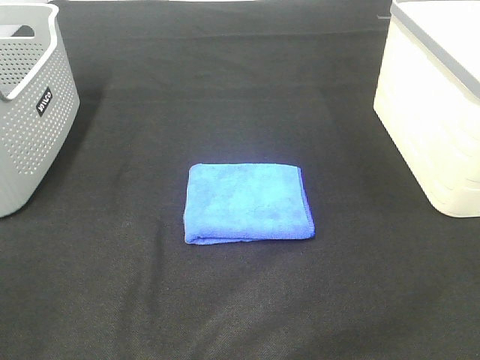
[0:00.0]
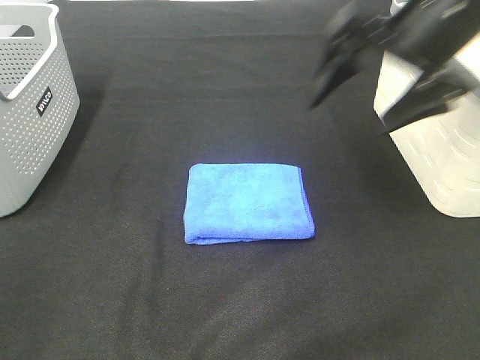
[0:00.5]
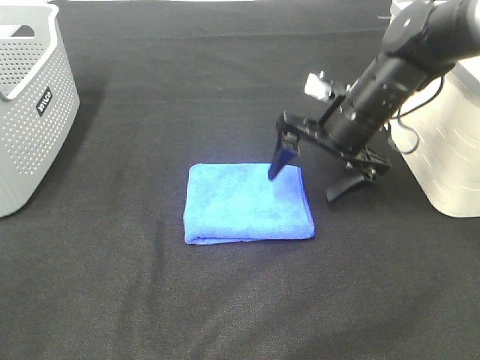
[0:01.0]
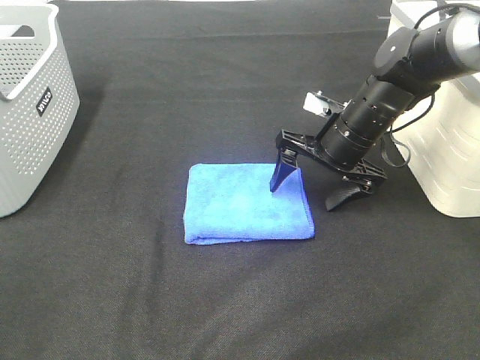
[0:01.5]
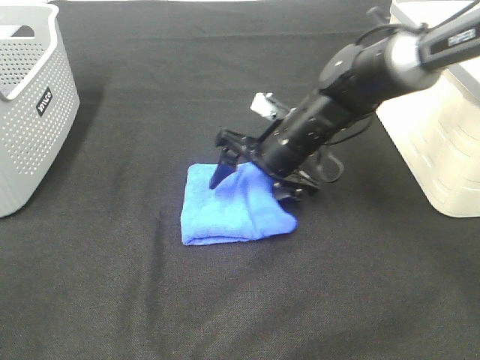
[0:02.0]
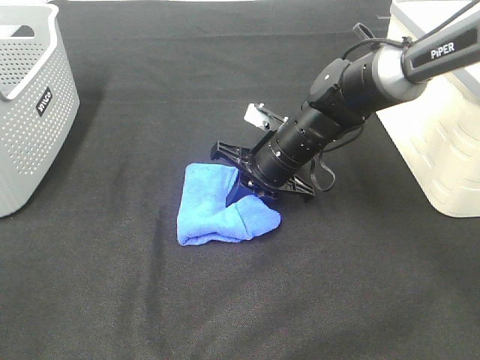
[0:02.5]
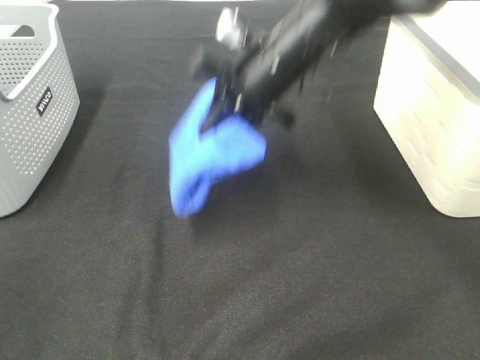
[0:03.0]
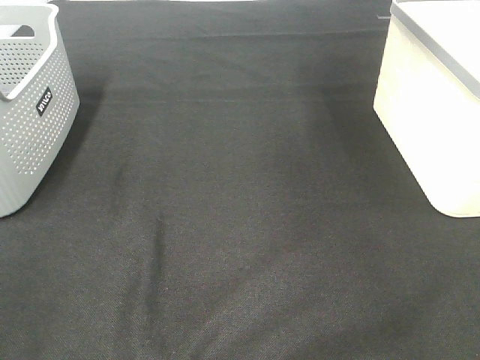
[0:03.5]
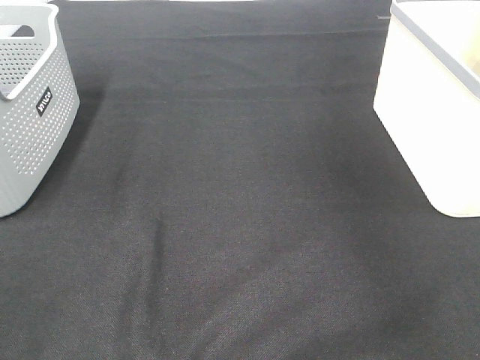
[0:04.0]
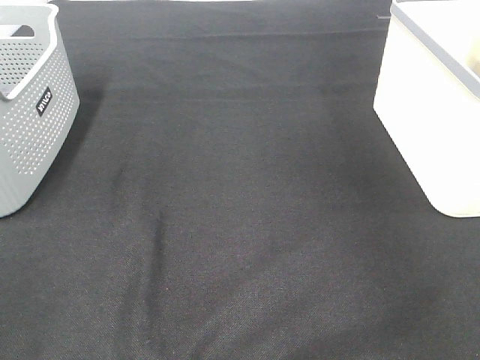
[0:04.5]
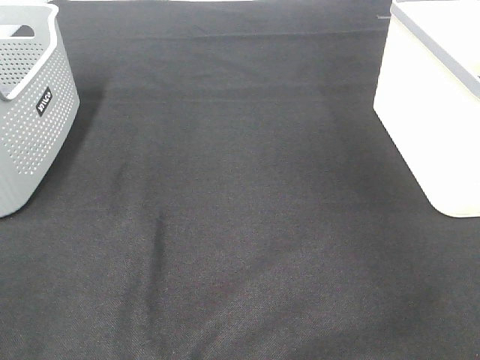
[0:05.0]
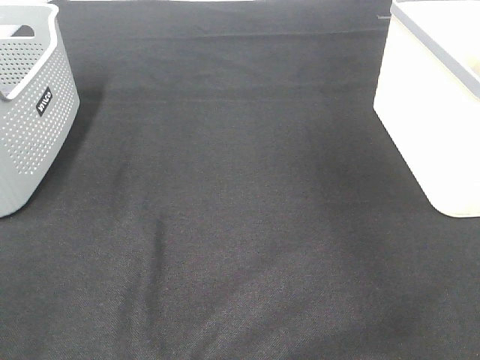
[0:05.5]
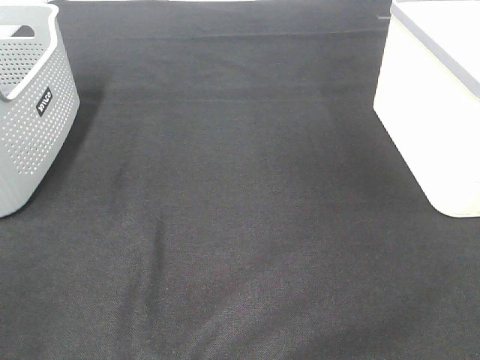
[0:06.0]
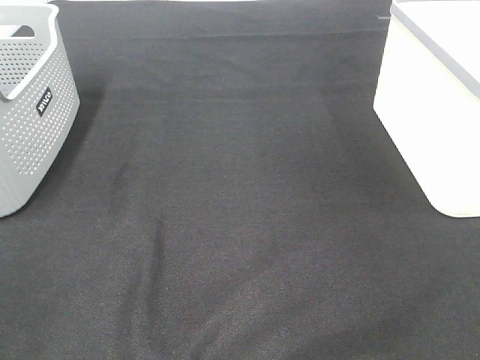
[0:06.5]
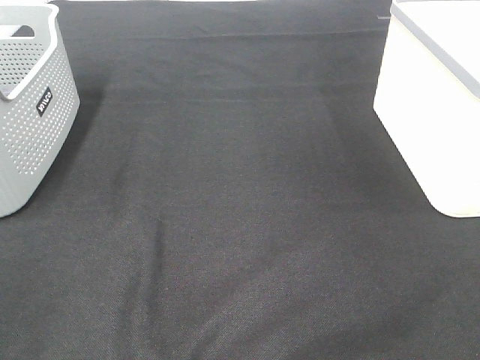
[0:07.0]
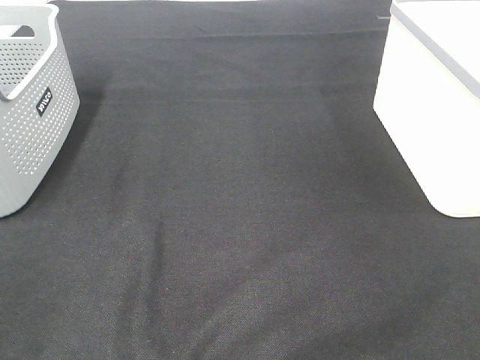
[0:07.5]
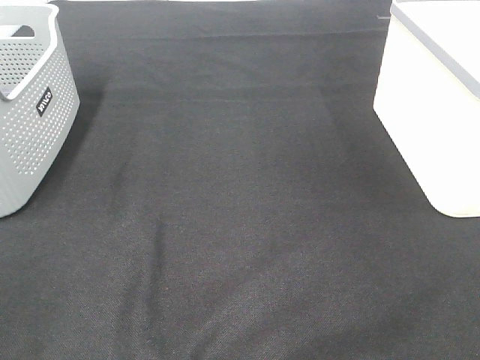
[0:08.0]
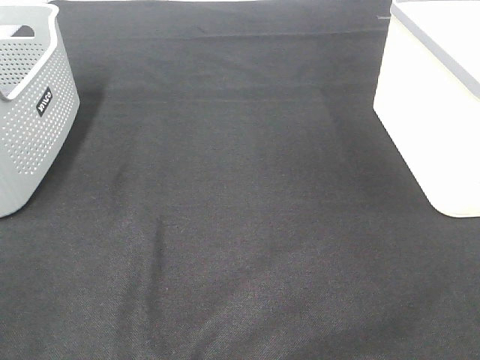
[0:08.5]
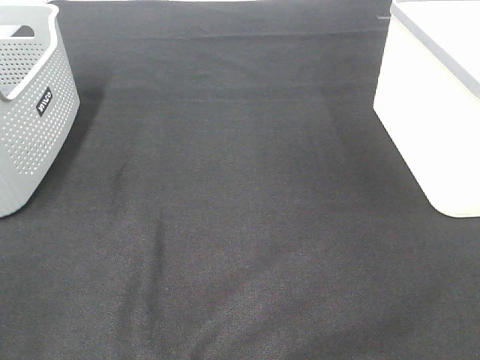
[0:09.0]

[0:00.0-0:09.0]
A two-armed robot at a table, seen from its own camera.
Step, 0:00.0 to 0:02.5: Right hand: grab the folded blue towel.
Step, 0:03.0 to 0:04.5: Right hand: place the blue towel in right basket.
0:00.0 to 0:02.0: The right gripper goes roughly 35 cm downward, to the left and forward.
0:02.0 to 0:04.5: The right gripper travels to the right and upward by about 40 cm, and closes up.

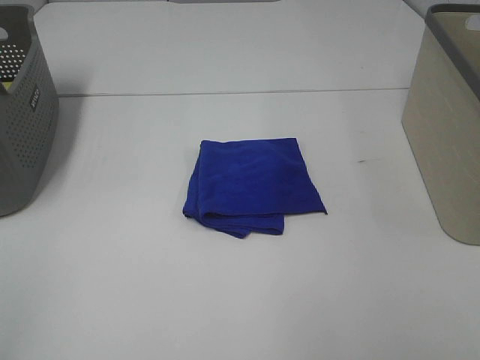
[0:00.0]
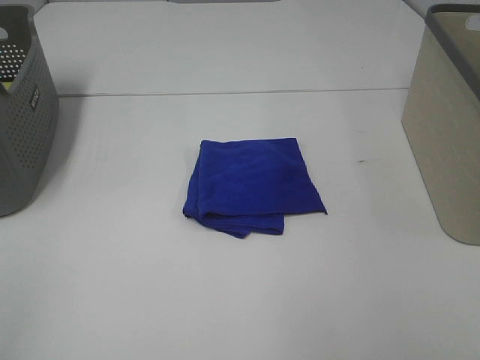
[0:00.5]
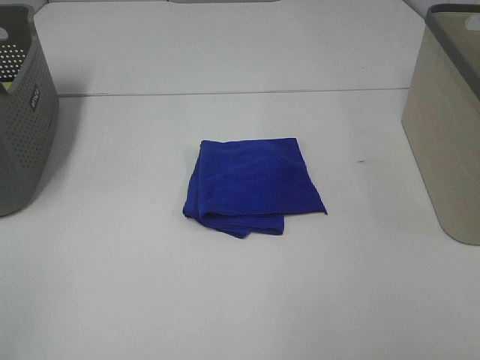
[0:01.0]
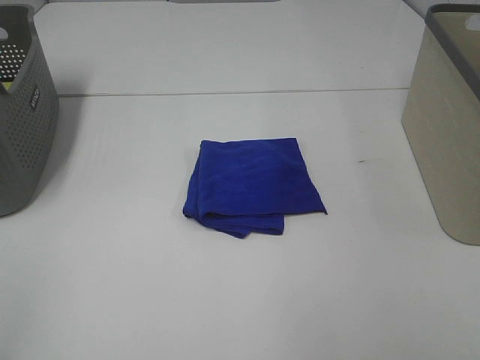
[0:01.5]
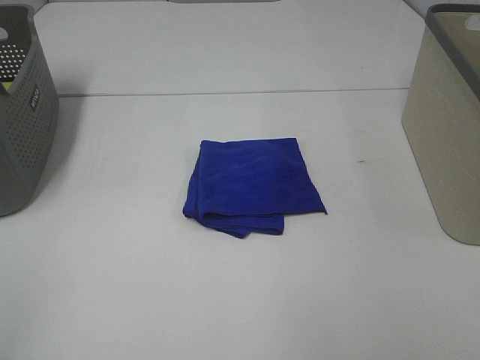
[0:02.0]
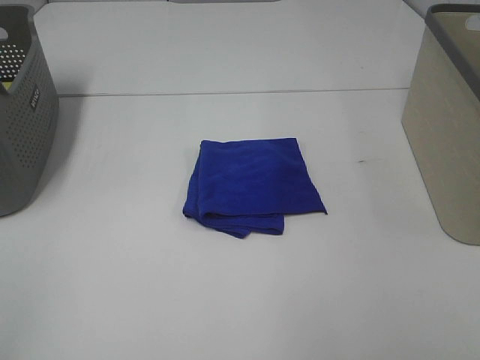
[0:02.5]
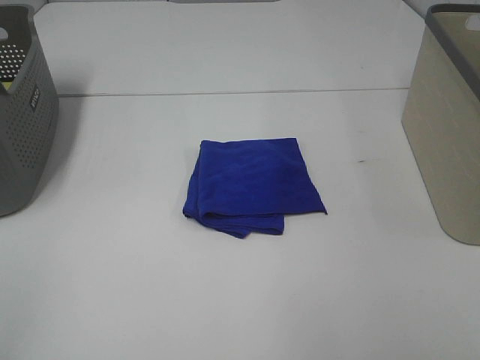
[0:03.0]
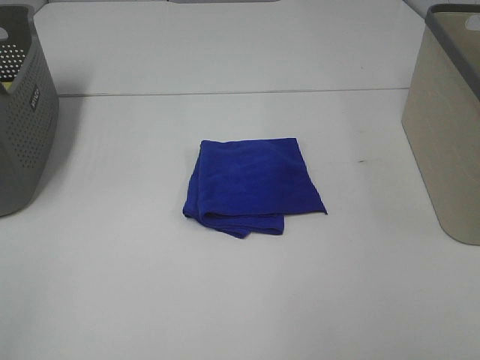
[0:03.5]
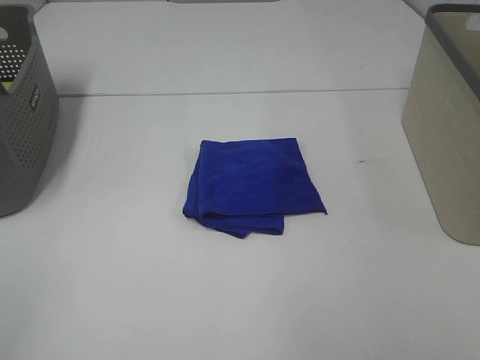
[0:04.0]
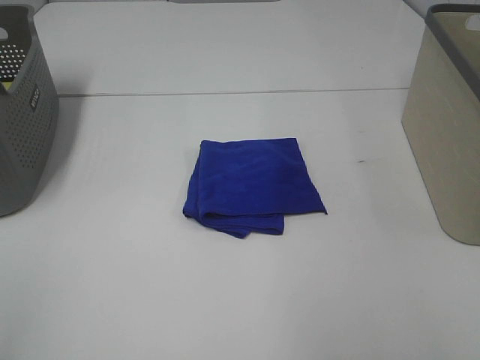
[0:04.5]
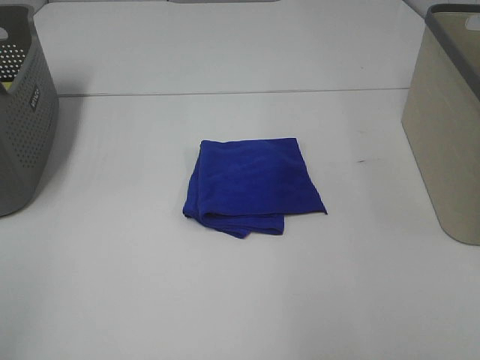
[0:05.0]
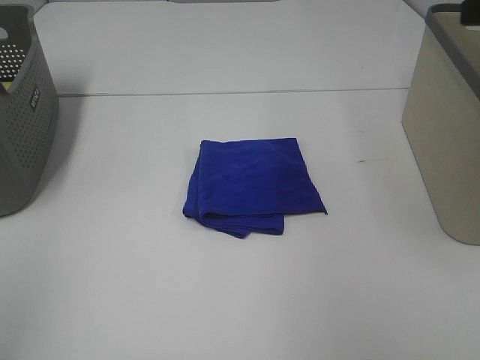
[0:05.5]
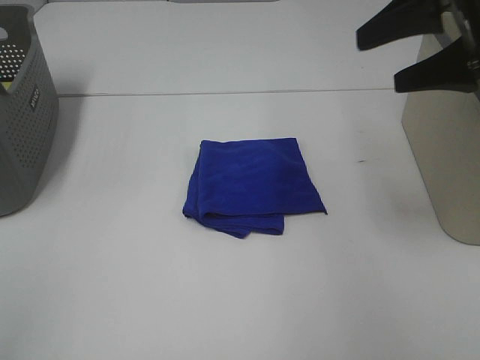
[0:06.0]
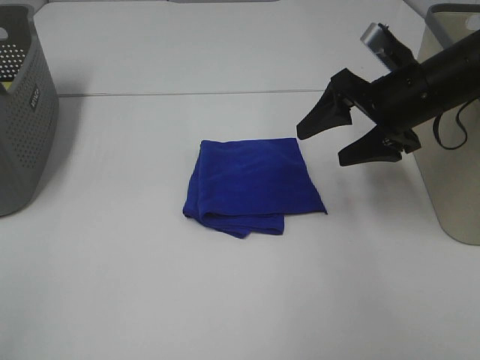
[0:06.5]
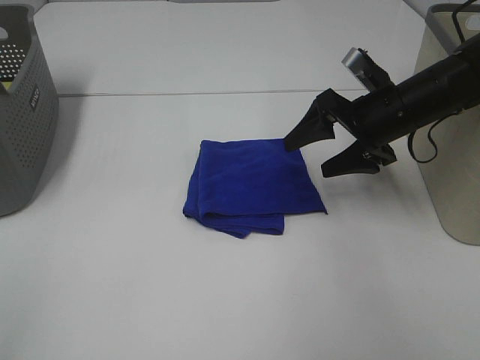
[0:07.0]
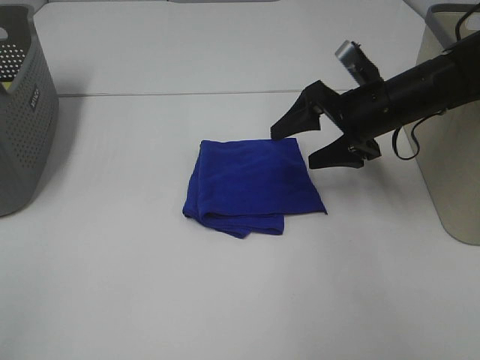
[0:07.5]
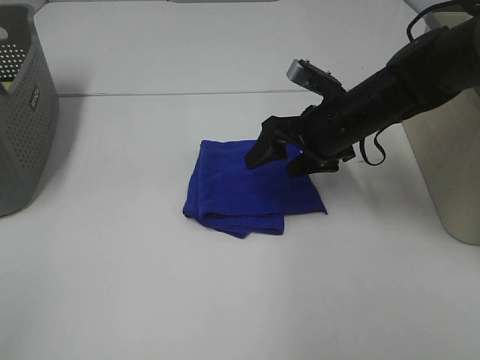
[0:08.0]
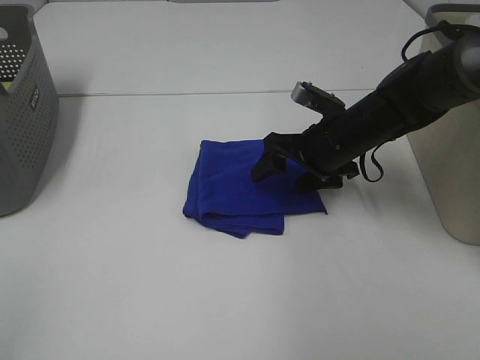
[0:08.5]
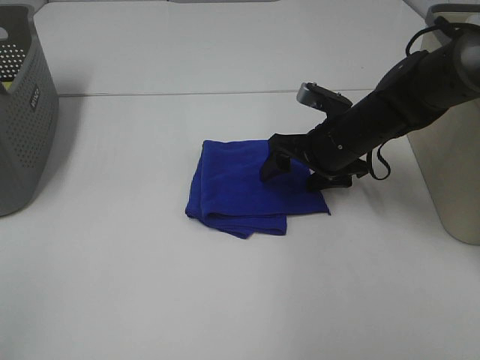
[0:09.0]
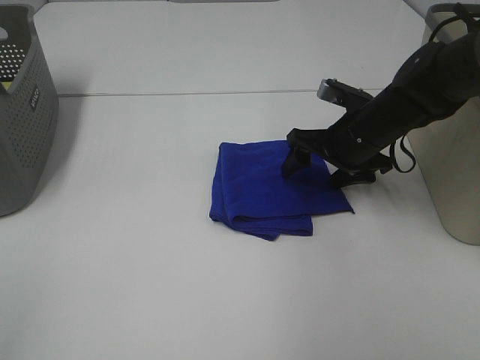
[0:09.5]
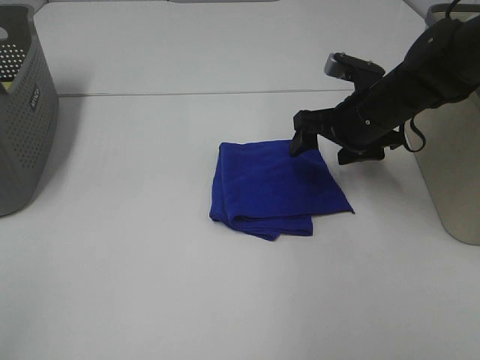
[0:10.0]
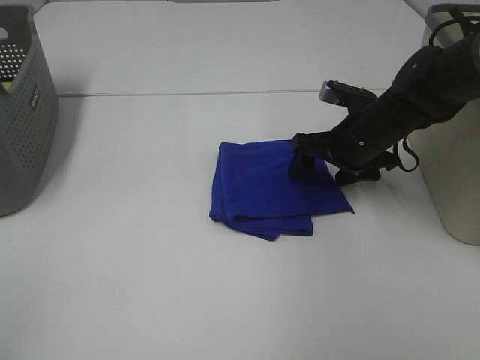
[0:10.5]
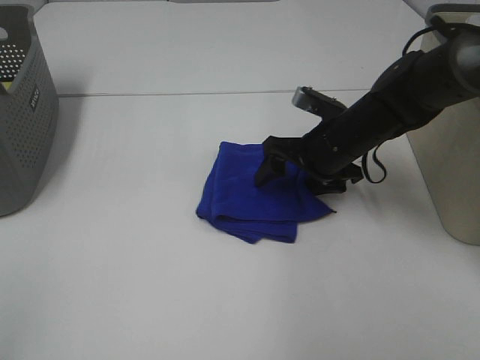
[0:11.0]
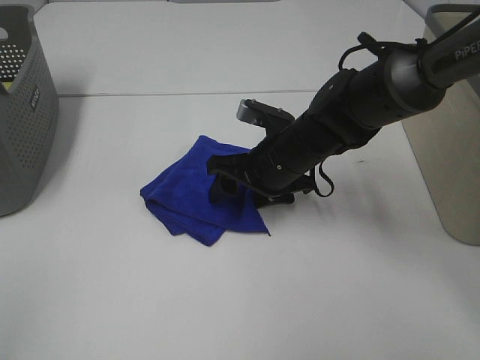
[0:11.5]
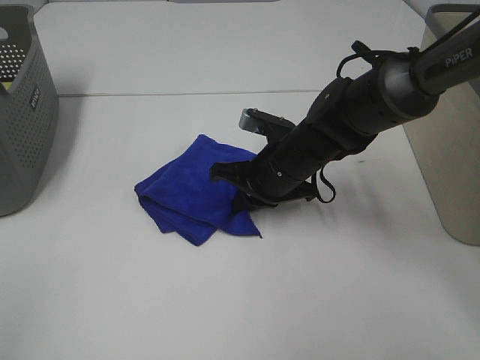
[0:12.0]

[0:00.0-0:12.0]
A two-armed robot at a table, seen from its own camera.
0:00.0 to 0:04.0: Both grippers stay about where they are.
0:04.0 to 0:06.0: The right gripper shifts approximately 30 cm forward.
0:06.0 to 0:08.0: The right gripper heads downward and to the left, covering roughly 20 cm.
0:08.0 to 0:10.0: The grippers move only a little.
0:10.0 to 0:12.0: The right gripper is displaced to the left and downward by approximately 10 cm, and closes its fingers.

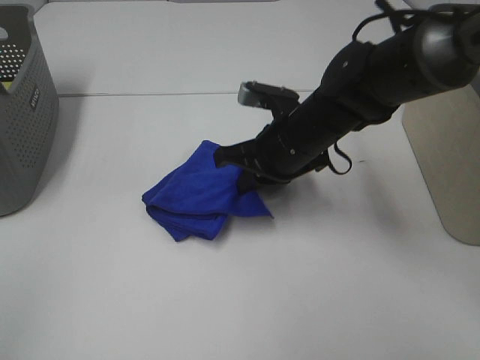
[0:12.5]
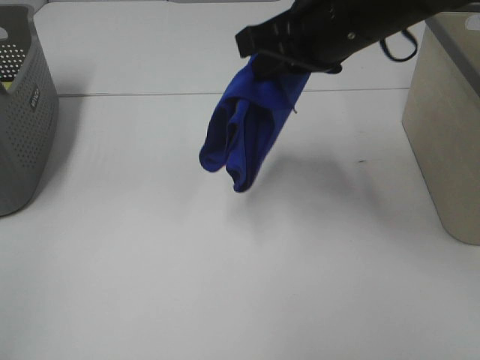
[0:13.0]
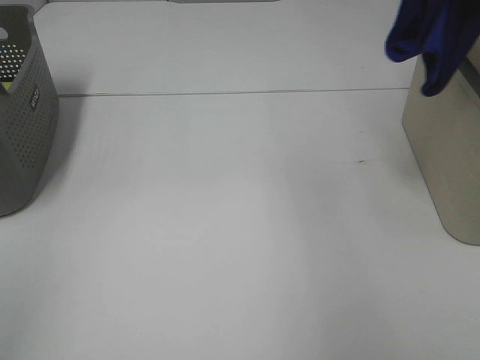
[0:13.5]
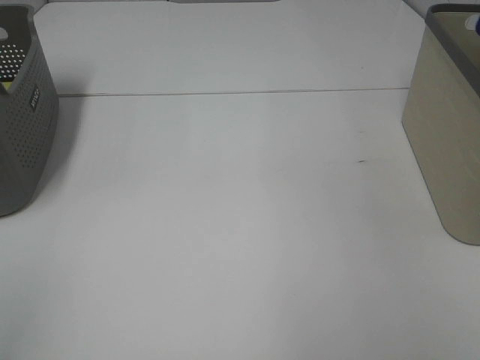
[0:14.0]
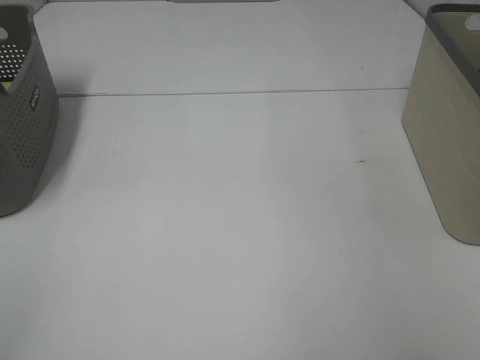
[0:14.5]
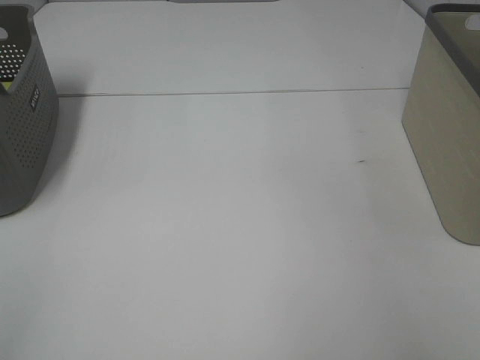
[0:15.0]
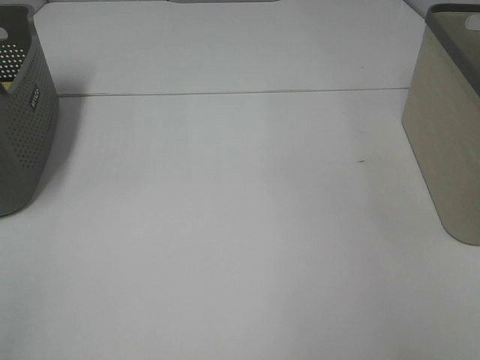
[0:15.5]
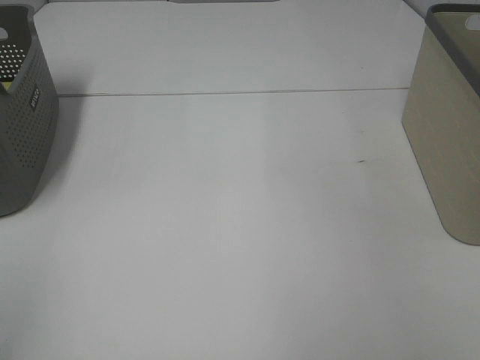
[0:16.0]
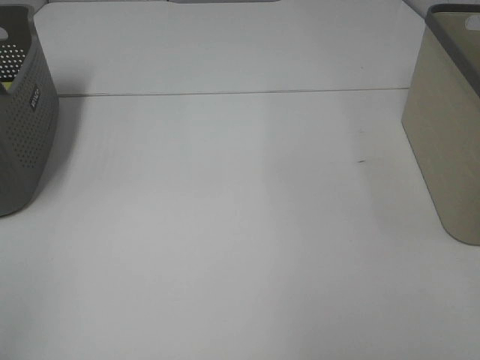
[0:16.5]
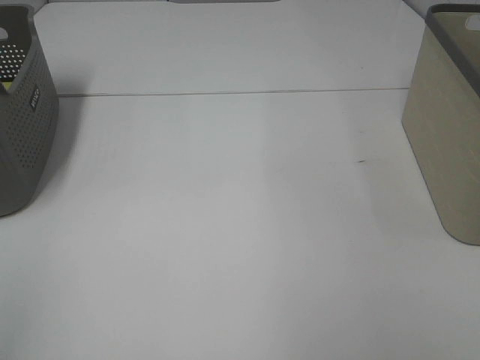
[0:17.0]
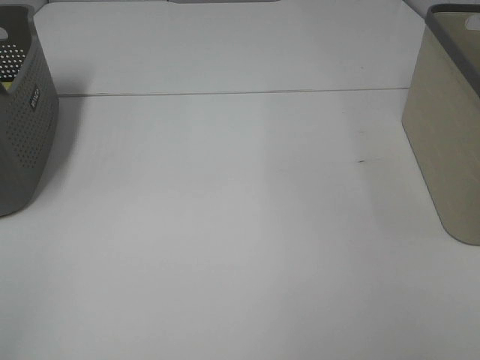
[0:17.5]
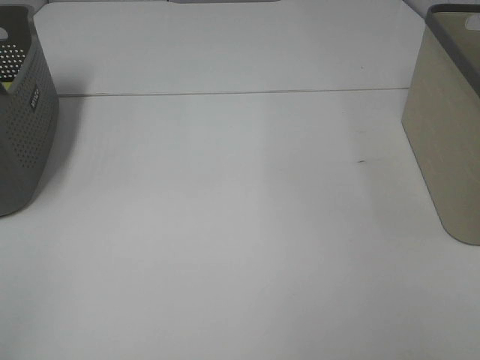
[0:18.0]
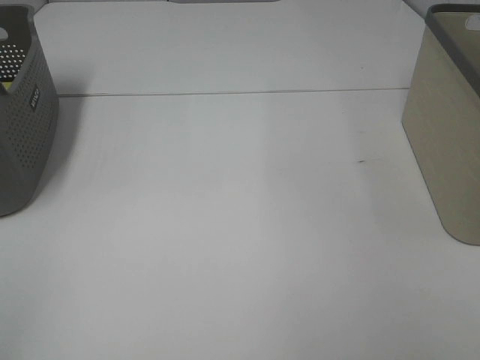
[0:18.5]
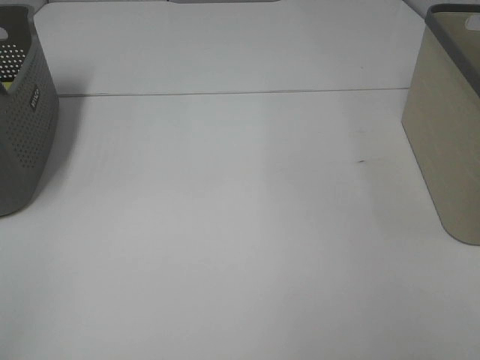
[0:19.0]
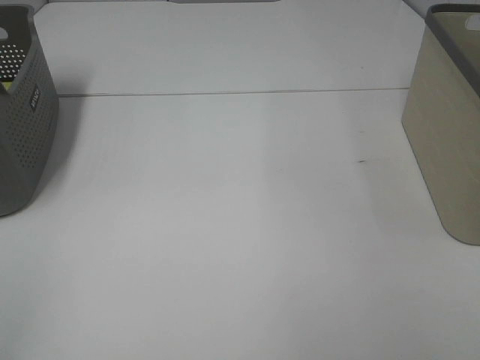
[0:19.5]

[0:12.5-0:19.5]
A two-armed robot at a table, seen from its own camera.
Step, 0:12.5 to 0:15.0: Right hand: place the blue towel in right basket.
0:12.5 to 0:14.5: The right gripper travels to the right and upward by roughly 35 cm.
0:17.5 to 0:19.5: Neither gripper changes place.
